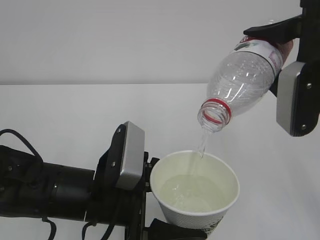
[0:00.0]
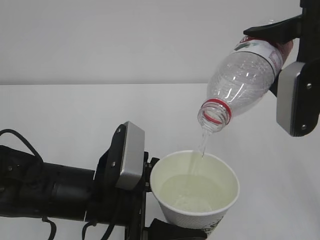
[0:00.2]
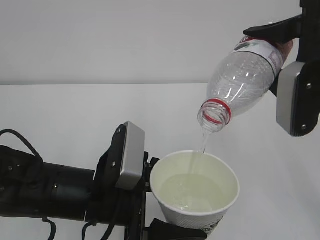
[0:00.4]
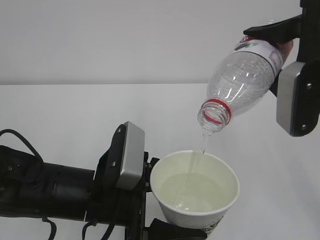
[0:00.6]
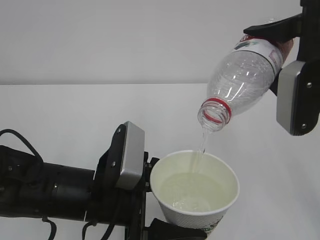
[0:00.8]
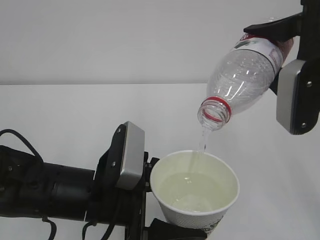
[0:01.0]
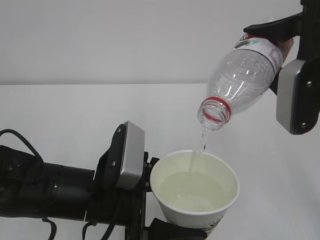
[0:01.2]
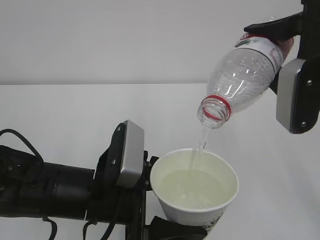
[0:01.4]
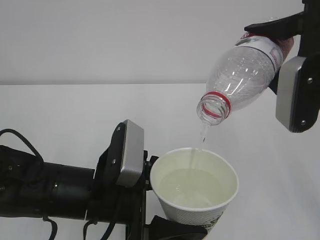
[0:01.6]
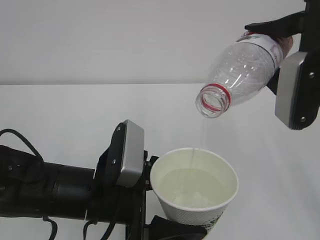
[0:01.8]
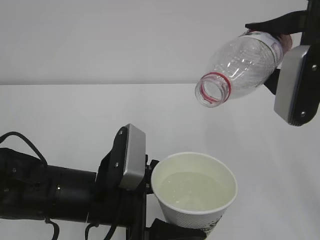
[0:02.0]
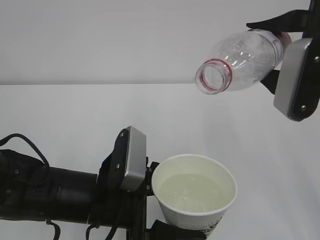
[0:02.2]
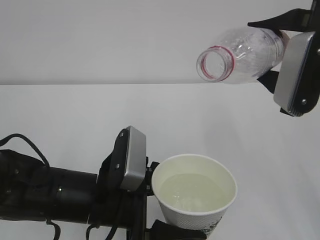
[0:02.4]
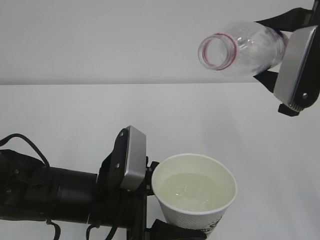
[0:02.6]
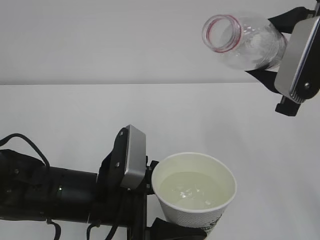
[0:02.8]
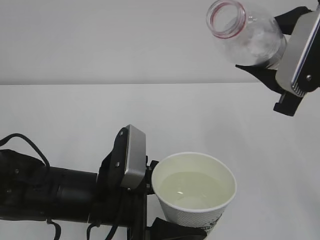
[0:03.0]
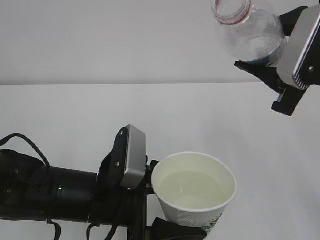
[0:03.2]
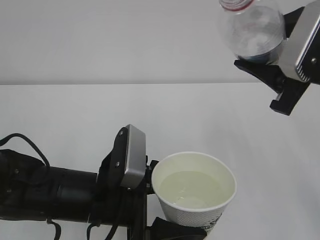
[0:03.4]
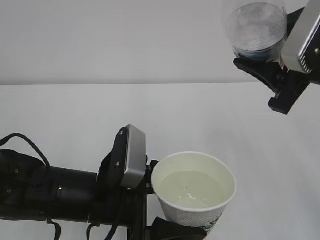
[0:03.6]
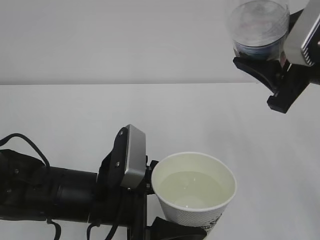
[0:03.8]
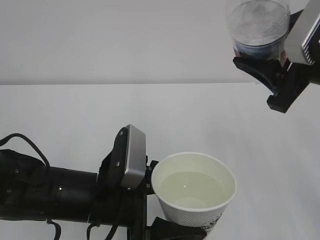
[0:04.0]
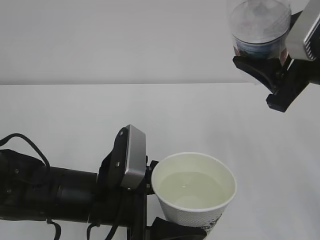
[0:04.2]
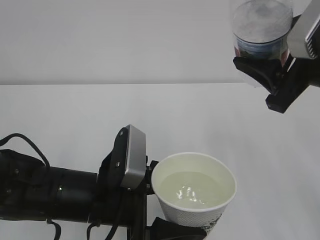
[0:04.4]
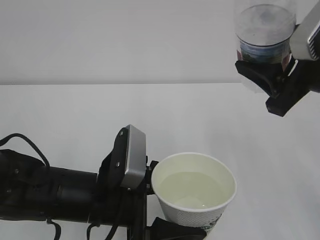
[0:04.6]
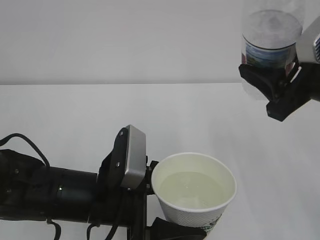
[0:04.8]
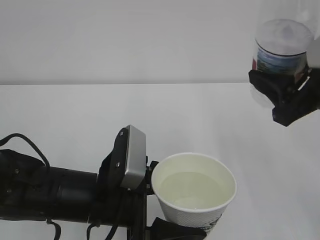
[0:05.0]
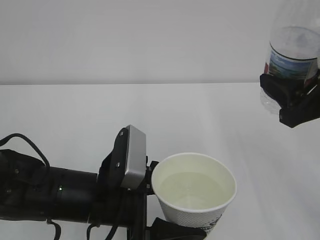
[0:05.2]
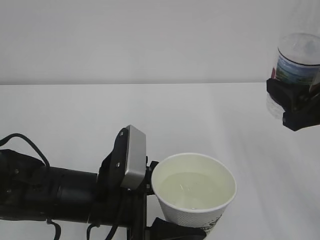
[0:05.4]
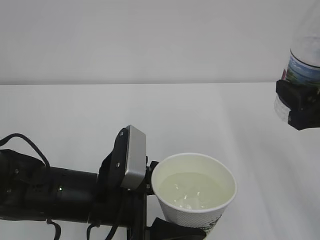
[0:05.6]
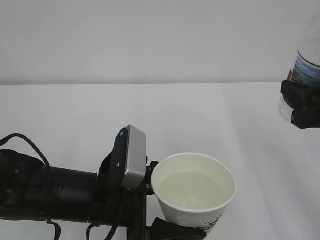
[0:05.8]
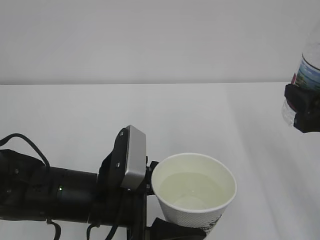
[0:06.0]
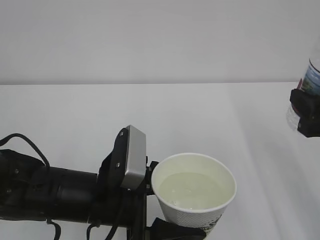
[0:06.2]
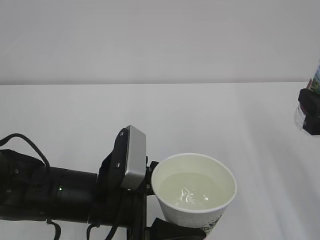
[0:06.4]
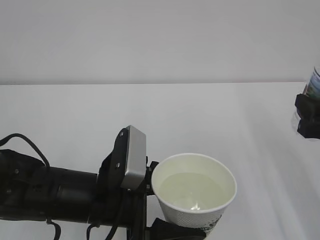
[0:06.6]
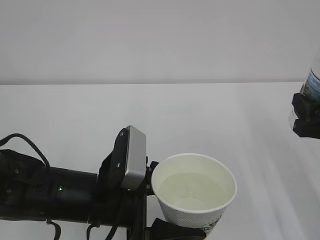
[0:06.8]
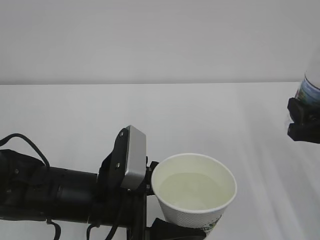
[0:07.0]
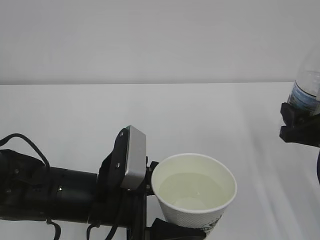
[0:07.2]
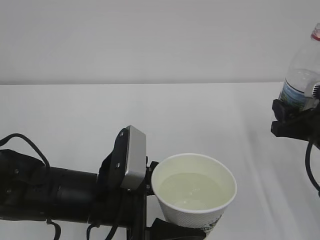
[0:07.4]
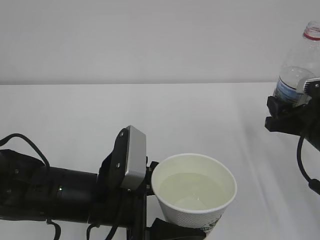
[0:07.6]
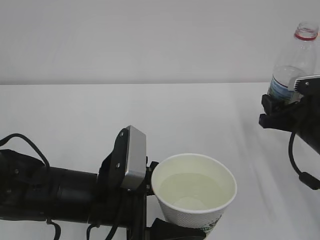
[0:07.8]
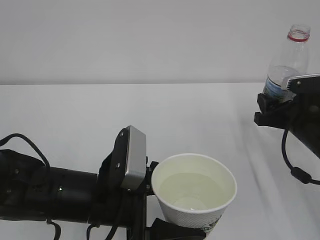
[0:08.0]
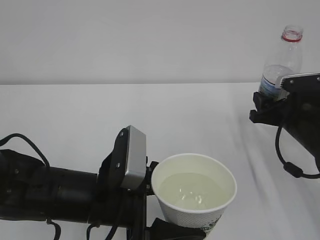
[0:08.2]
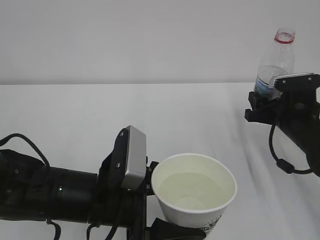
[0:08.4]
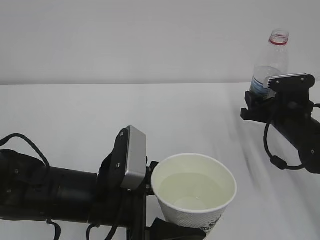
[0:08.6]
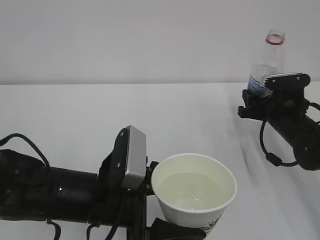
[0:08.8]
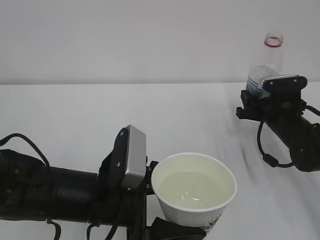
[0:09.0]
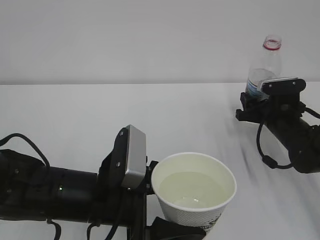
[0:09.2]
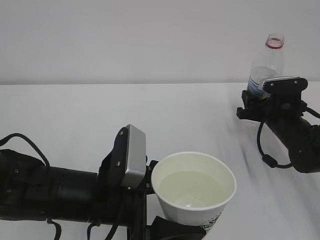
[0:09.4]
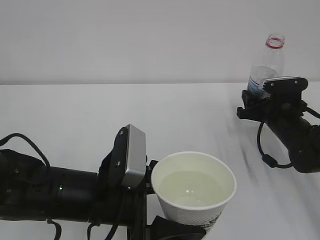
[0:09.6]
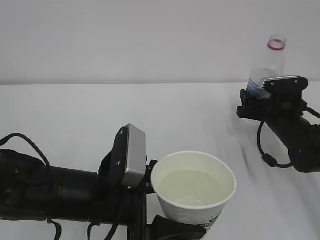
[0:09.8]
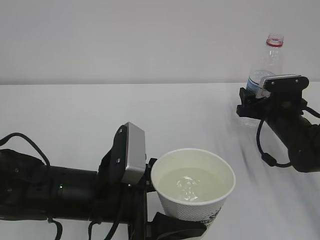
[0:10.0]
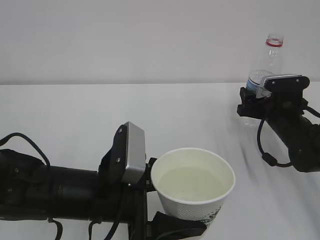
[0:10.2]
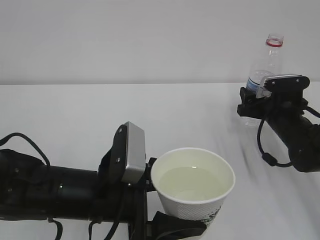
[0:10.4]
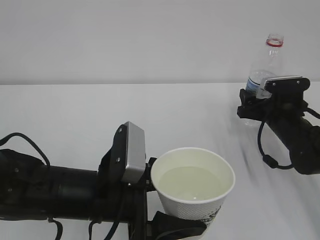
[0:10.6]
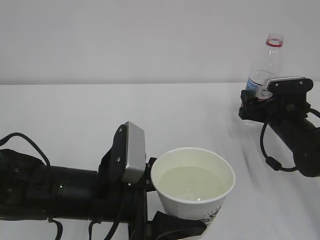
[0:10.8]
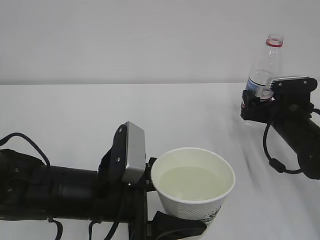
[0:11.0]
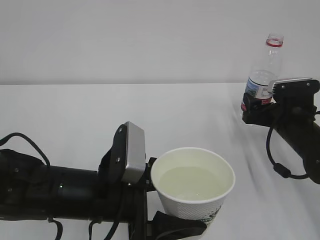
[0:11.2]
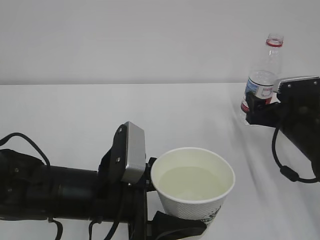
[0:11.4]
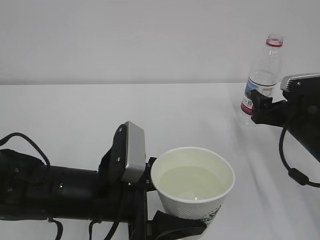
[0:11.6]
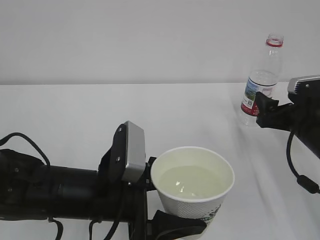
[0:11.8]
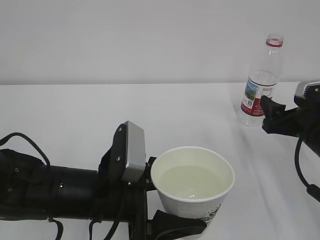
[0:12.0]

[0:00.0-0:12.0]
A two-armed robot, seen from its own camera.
0:00.0 to 0:01.6: Both grippers stay about where they are.
0:04.4 to 0:06.0: The right gripper goes approximately 5 cm downward.
0:06.0 to 0:07.6: The right gripper goes about 10 cm downward and forward.
0:07.6 to 0:09.0: The right gripper shifts about 10 cm forward and downward.
0:09.0 to 0:10.4: The right gripper opens up.
0:10.4 to 0:12.0: The right gripper goes approximately 10 cm backward and upward.

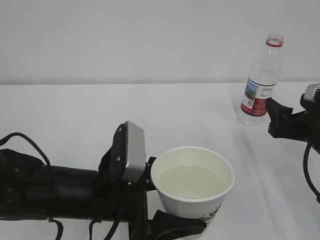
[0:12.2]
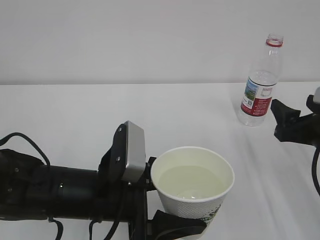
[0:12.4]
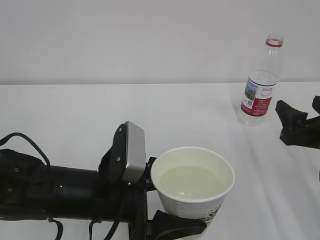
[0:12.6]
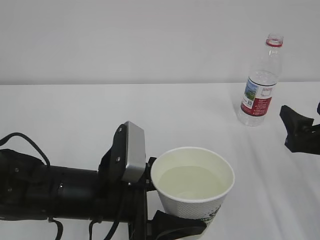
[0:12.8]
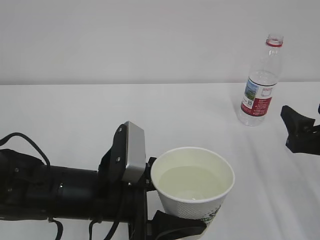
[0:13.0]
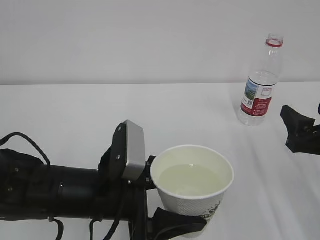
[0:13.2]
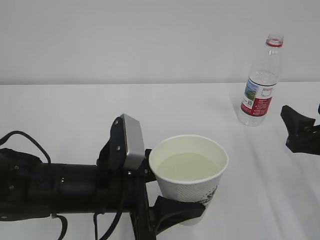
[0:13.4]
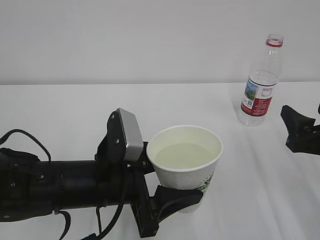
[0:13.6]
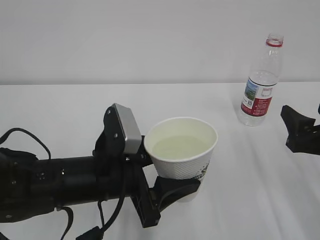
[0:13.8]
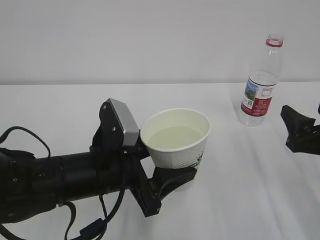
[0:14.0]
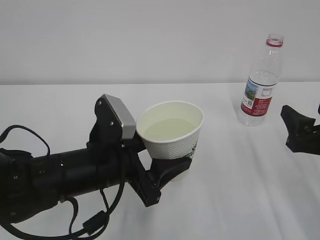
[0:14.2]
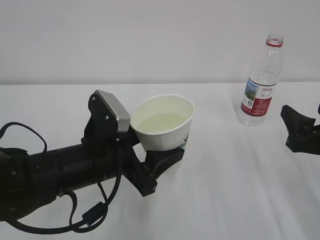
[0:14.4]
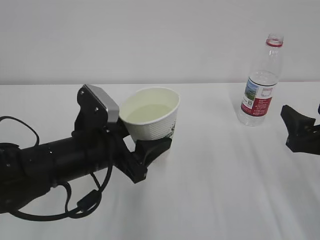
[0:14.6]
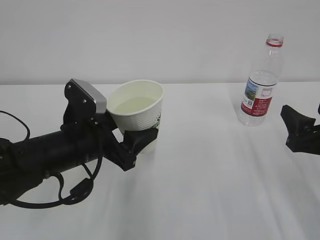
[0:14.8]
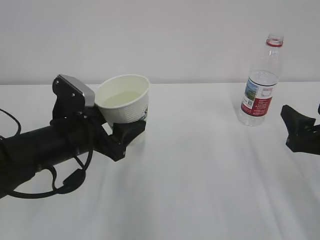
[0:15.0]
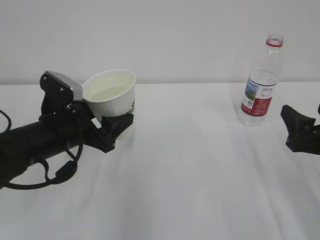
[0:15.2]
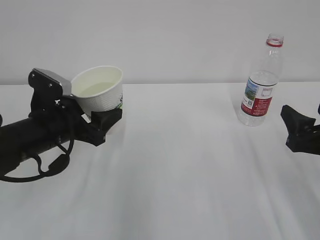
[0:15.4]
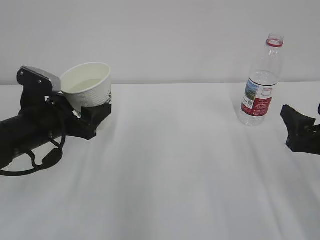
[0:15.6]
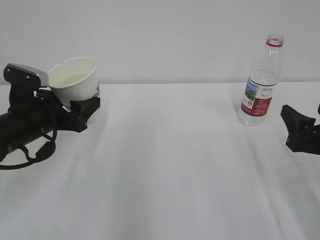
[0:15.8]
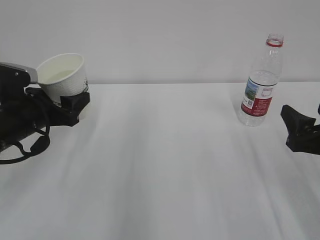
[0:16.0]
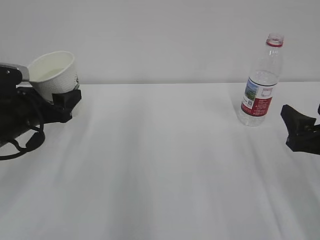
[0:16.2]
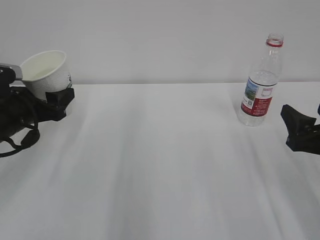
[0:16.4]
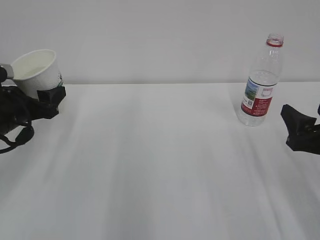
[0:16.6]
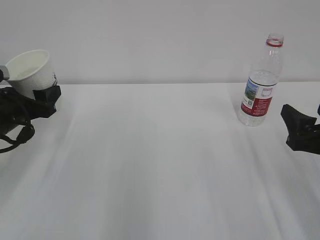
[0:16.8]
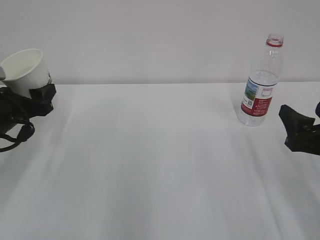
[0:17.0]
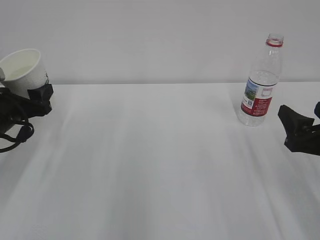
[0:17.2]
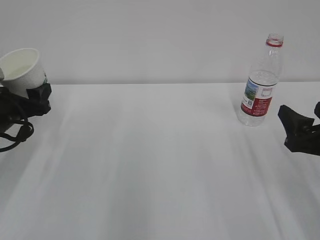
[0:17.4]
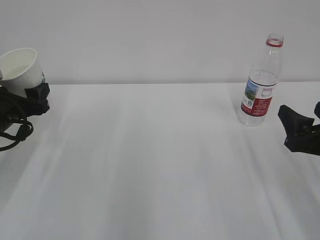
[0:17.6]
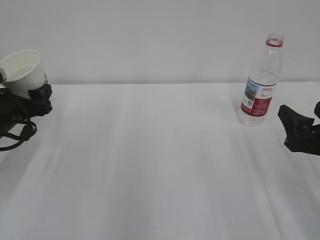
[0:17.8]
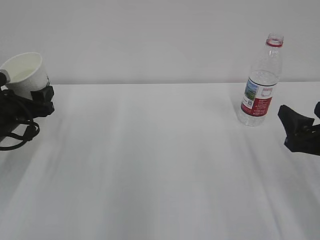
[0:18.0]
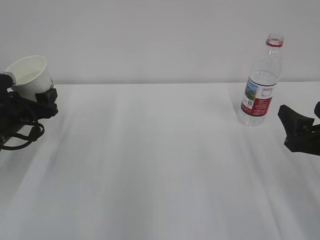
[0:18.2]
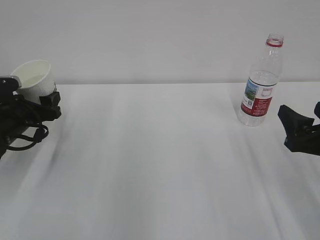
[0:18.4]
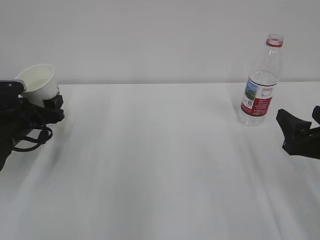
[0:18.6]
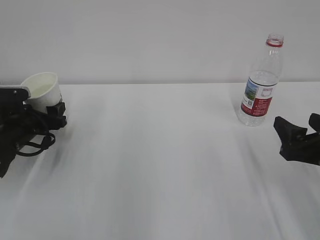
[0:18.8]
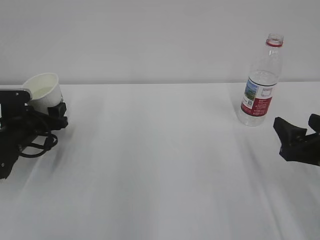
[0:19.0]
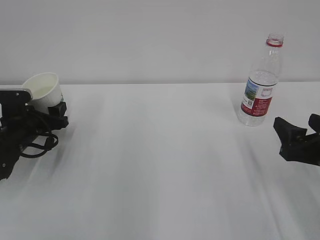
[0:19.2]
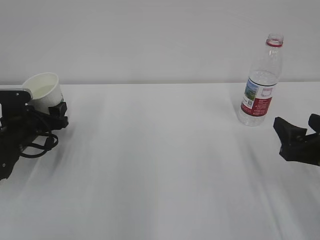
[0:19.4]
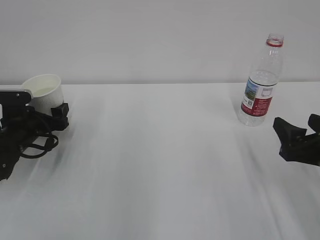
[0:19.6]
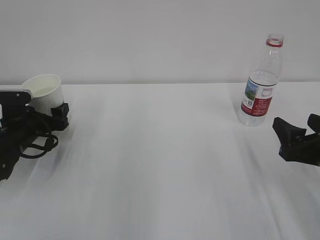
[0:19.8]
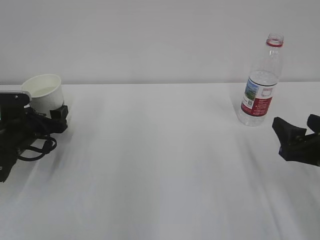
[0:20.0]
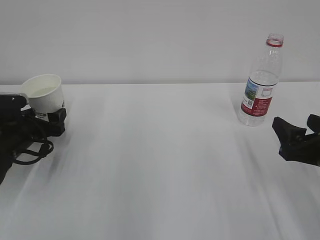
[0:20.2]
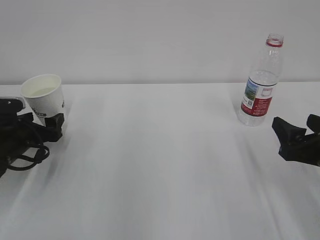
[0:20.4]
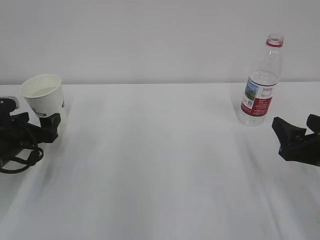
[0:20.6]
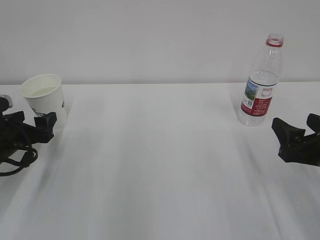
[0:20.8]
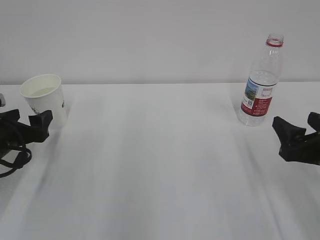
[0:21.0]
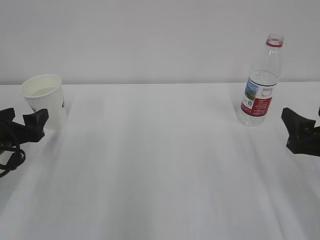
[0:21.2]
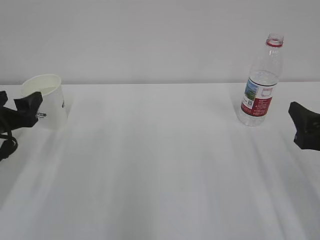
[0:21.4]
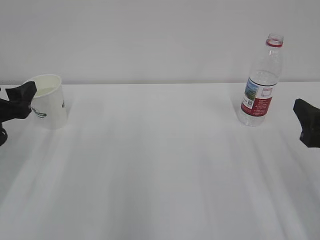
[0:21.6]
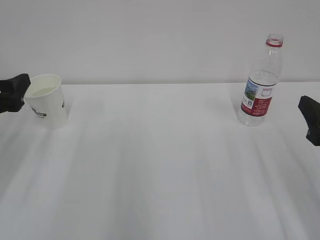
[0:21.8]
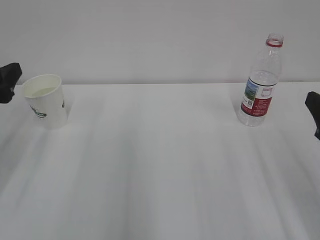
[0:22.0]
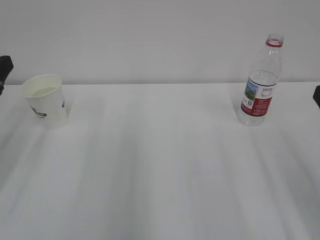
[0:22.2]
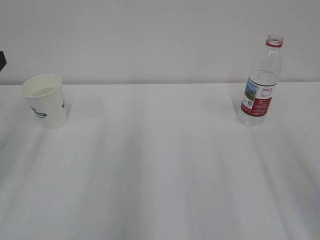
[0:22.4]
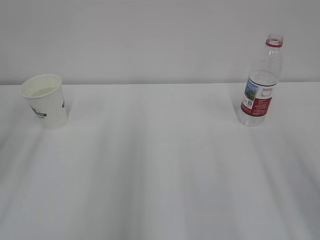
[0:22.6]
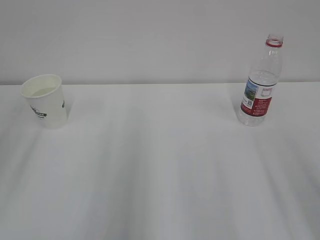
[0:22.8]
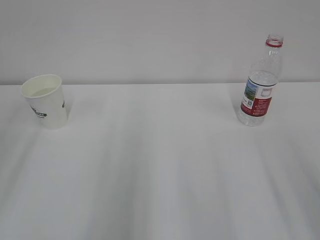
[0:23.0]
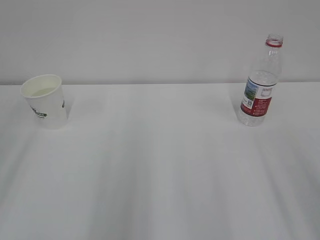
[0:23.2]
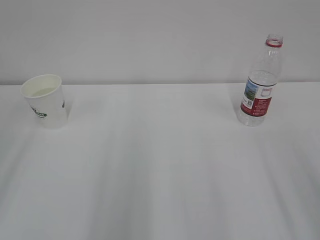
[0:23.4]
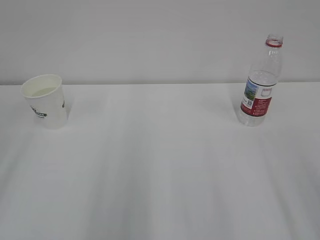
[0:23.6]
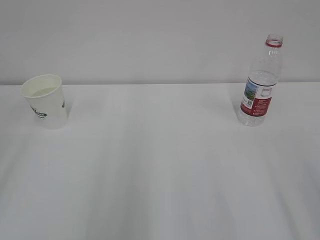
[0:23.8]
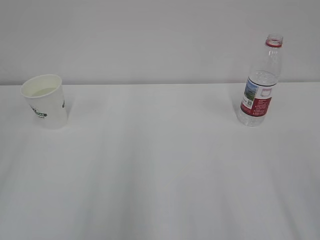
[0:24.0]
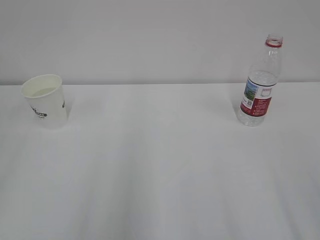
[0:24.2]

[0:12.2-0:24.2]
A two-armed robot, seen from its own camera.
0:12.2 to 0:13.8: The grippers stay close to where they were, moving slightly.
0:13.8 to 0:15.2: The left gripper travels to the left and forward by about 10 cm.
0:15.2 to 0:16.6: The left gripper shifts some 10 cm to the left.
0:16.6 to 0:18.2: There are only small adjustments of the grippers.
0:18.2 to 0:19.8: The left gripper travels downward by about 5 cm, and opens up.
0:19.8 to 0:21.2: The left gripper goes approximately 10 cm backward and upward.
0:21.2 to 0:22.6: Both grippers move upward and backward, some 15 cm.
